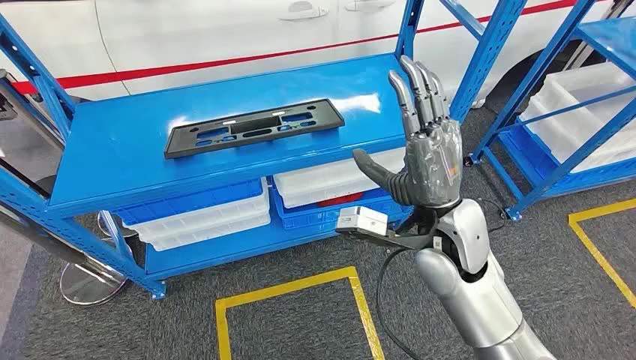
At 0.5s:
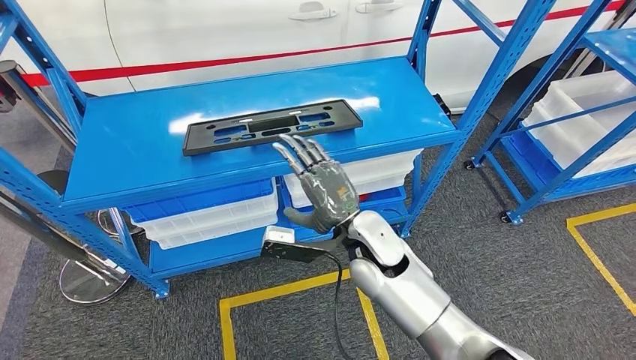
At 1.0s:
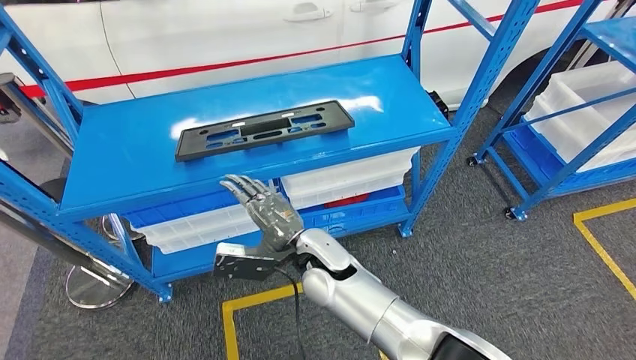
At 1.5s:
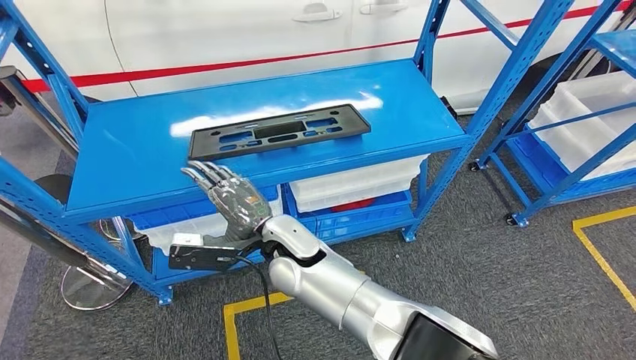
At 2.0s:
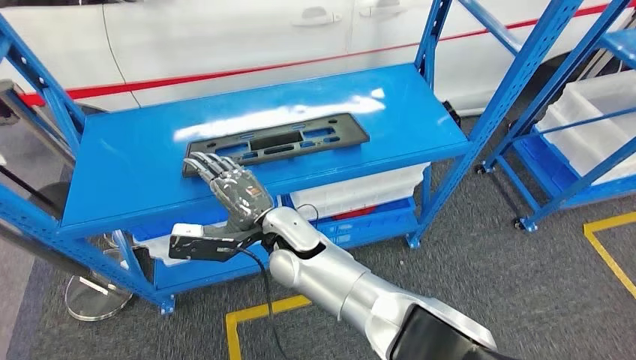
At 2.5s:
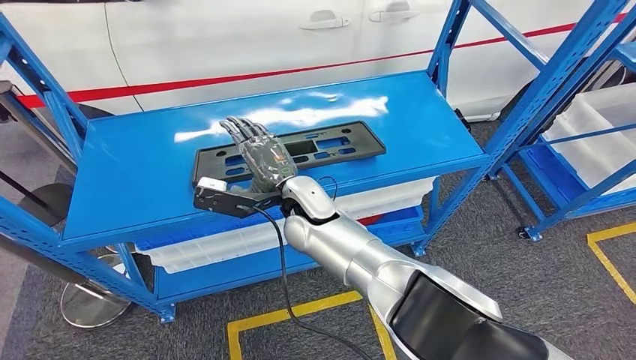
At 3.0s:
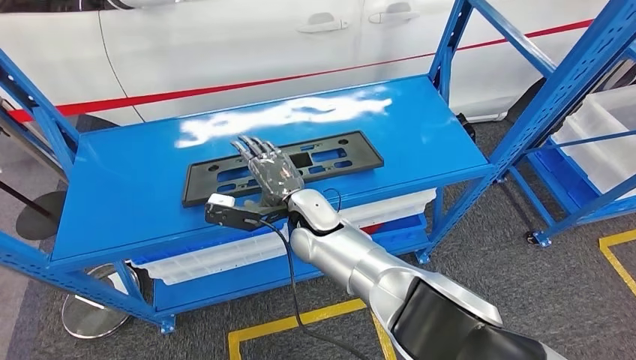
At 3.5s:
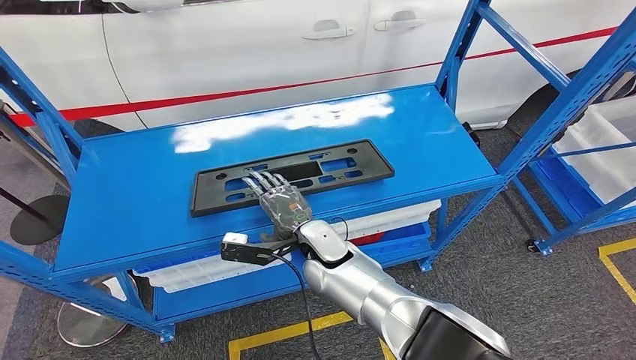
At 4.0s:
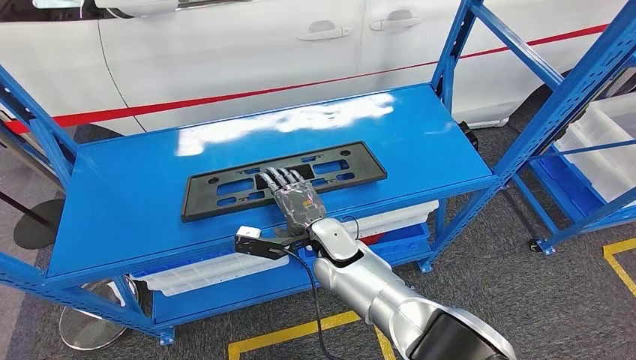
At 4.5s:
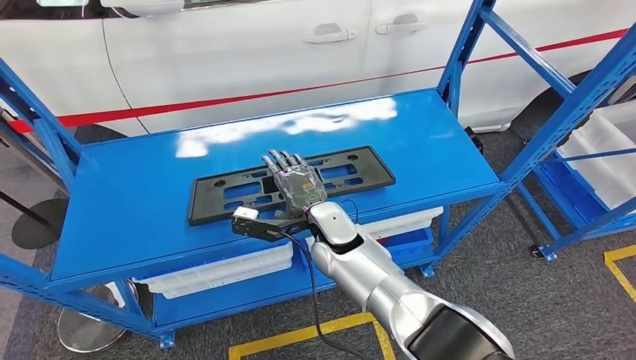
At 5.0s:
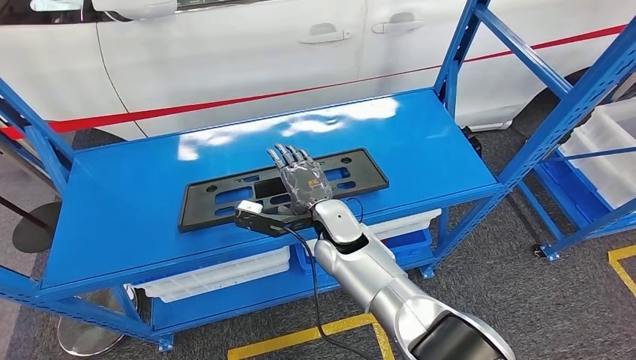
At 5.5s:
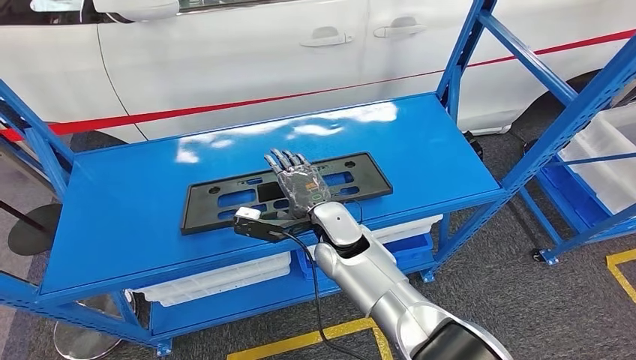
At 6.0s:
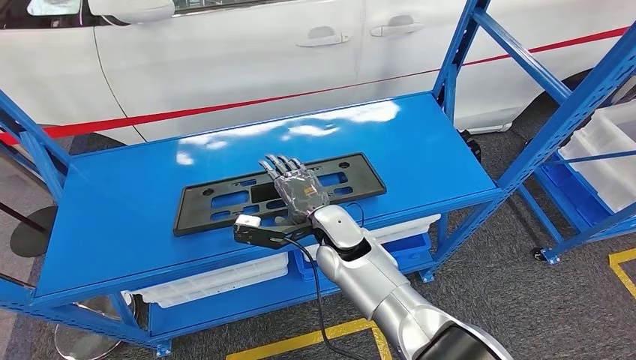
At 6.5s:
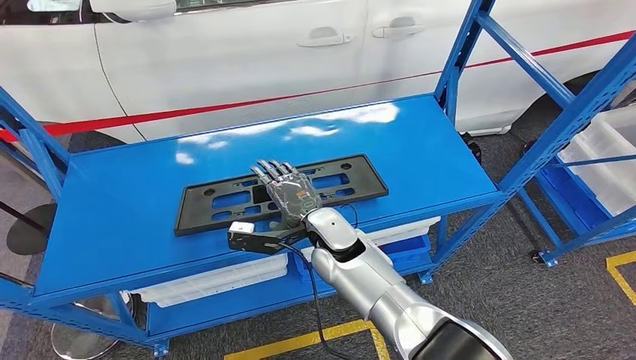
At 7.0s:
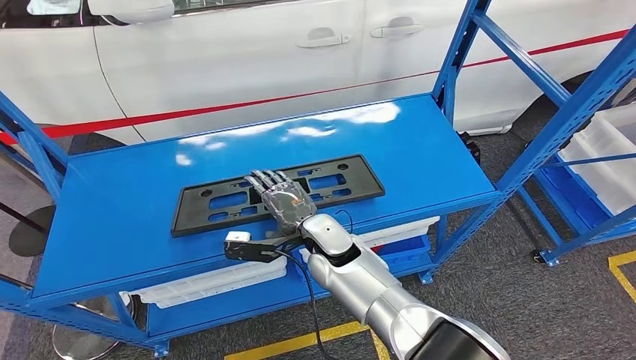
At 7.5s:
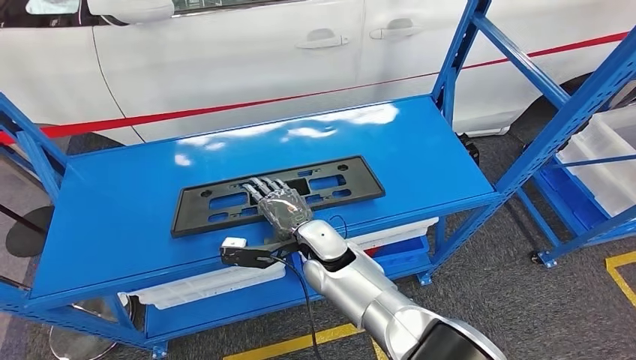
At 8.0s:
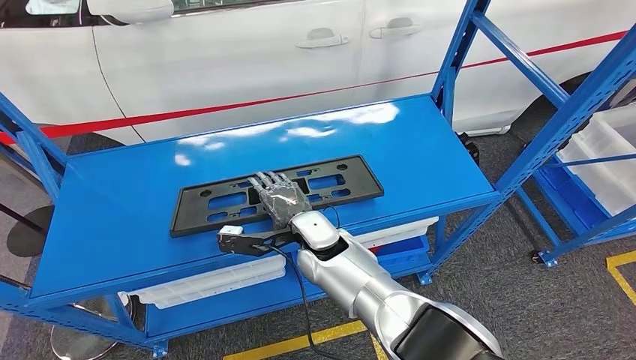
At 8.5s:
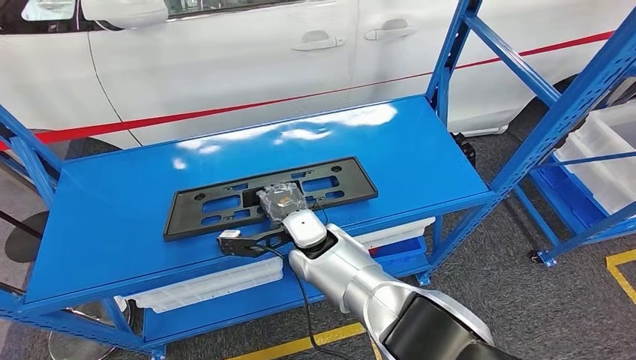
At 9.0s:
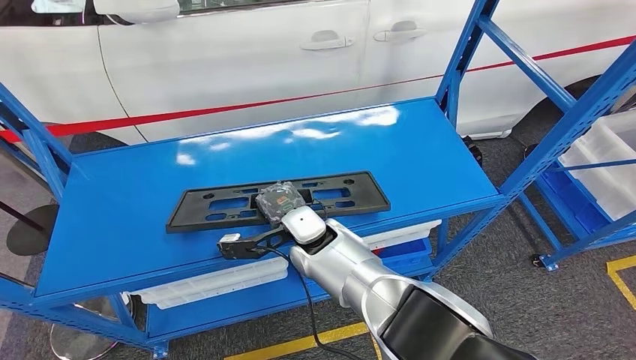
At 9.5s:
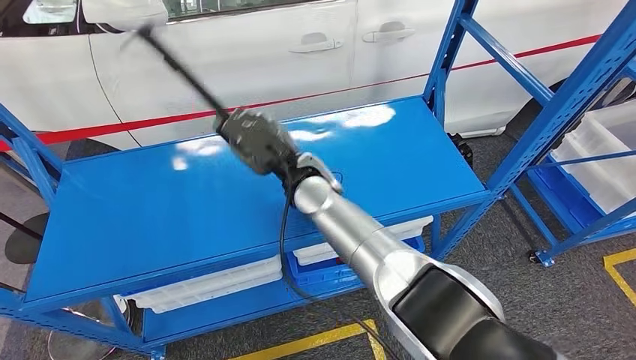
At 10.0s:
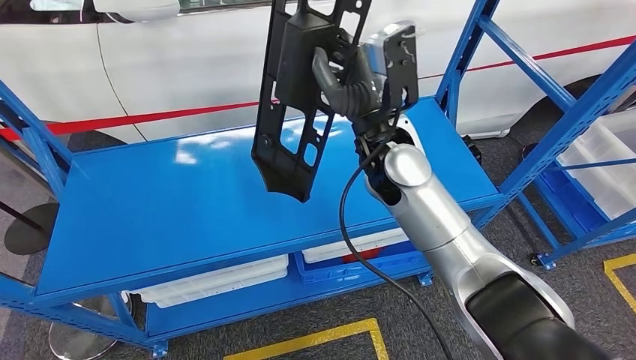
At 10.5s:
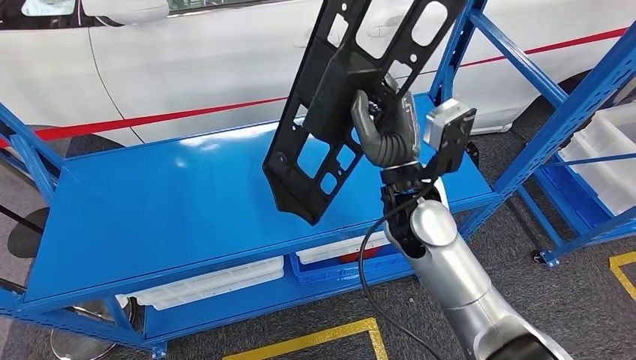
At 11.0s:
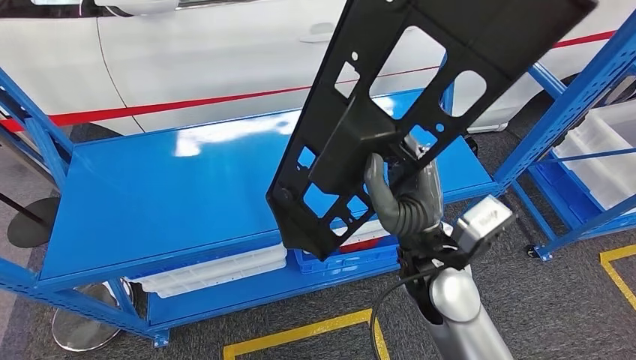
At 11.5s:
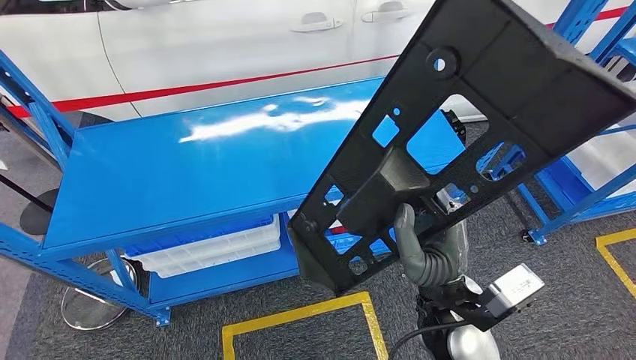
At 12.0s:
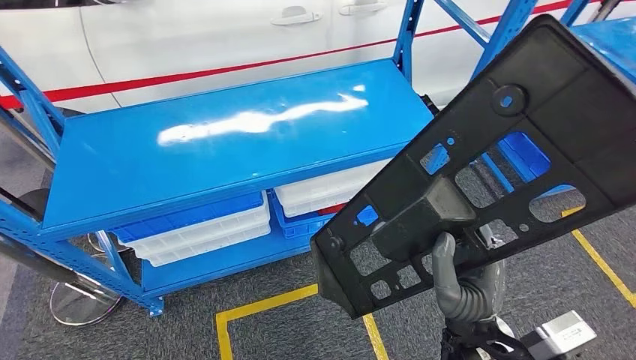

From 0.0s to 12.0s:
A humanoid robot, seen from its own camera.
Step, from 0.0s to 9.5s: Pick up the large parts from the shelf.
From 6.0s to 8.0s: The hands stay close to where they were, moving slightly.

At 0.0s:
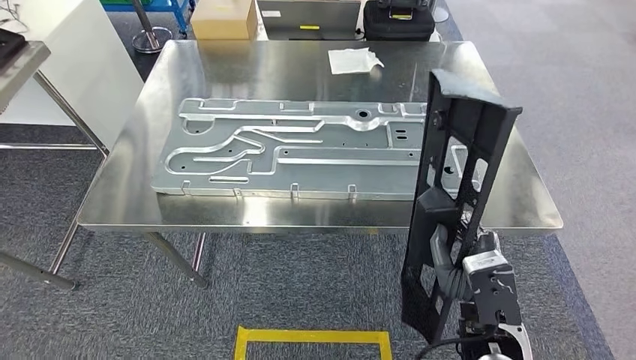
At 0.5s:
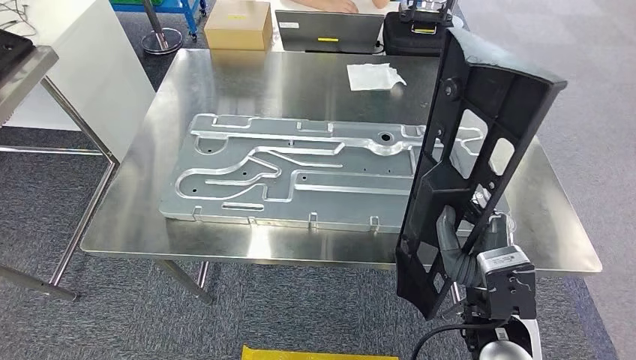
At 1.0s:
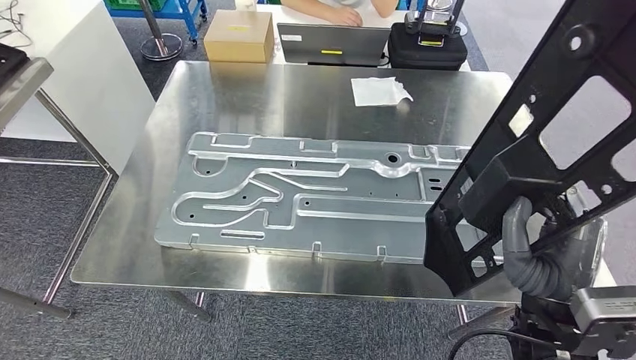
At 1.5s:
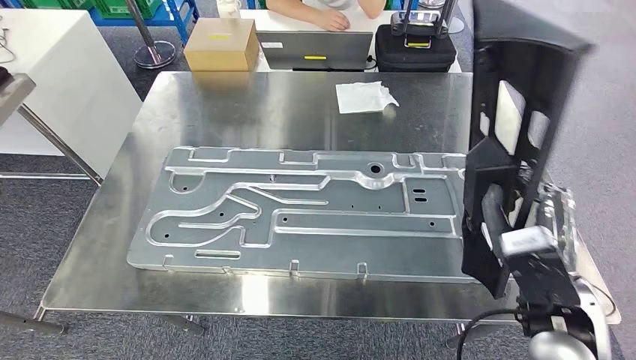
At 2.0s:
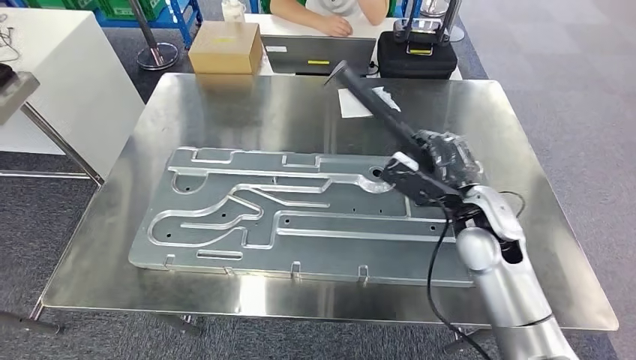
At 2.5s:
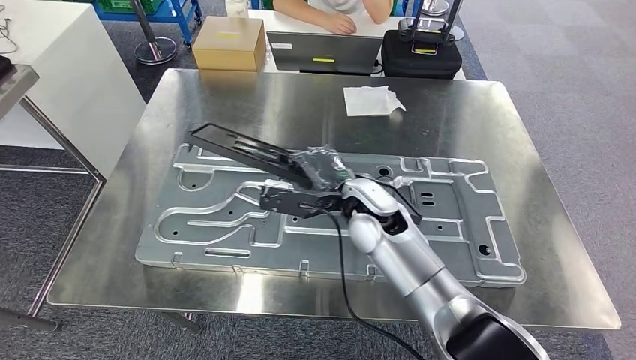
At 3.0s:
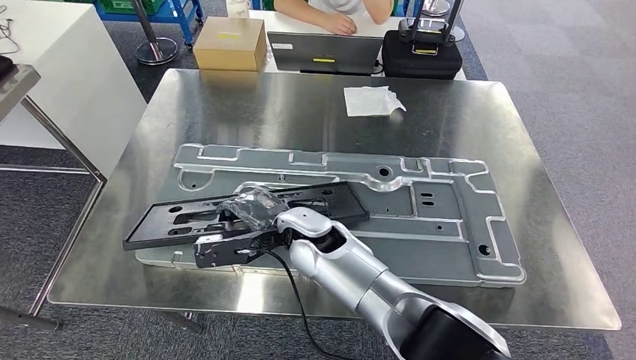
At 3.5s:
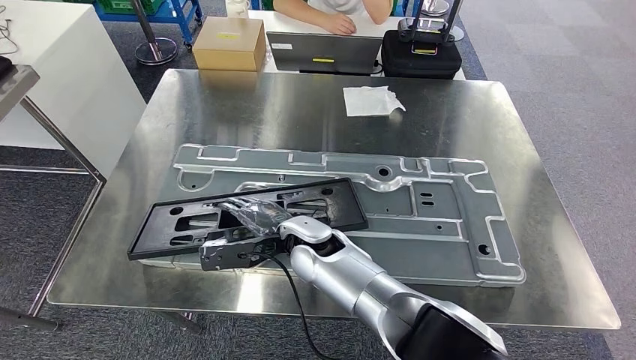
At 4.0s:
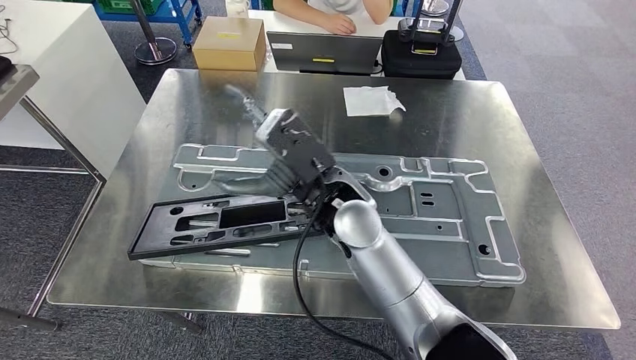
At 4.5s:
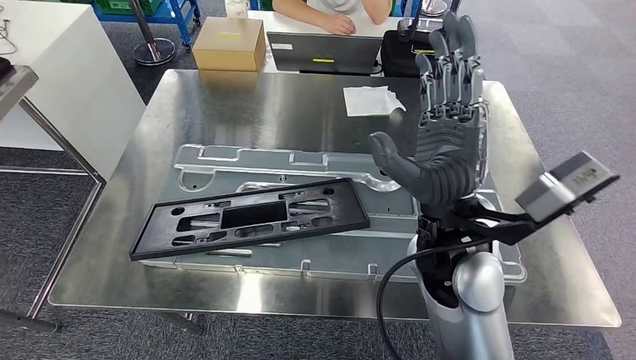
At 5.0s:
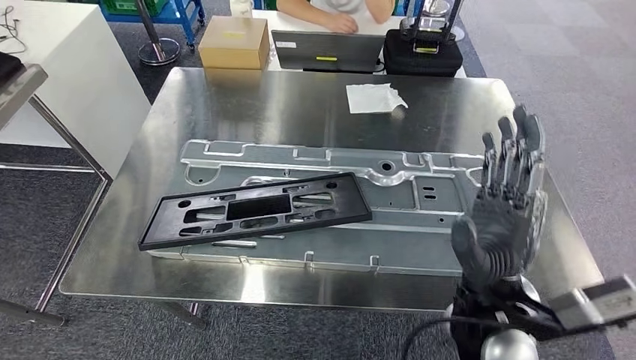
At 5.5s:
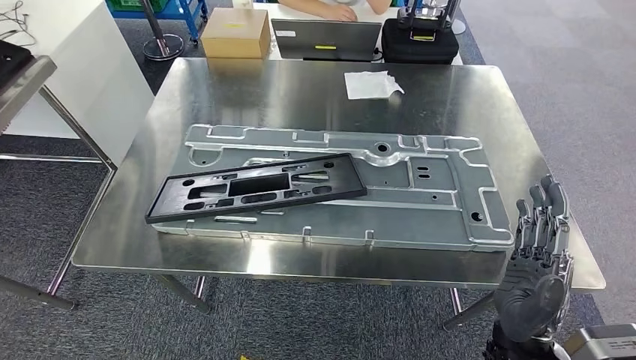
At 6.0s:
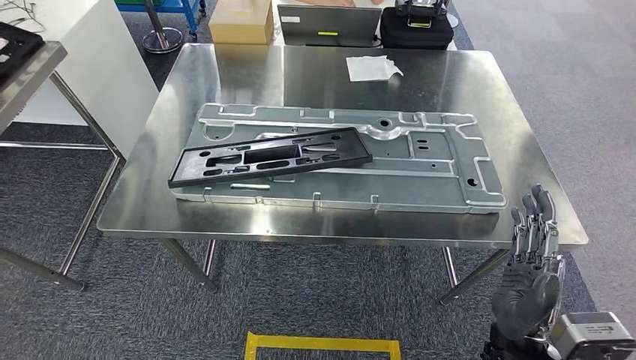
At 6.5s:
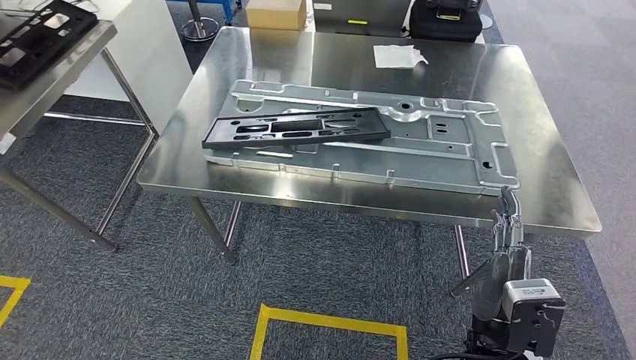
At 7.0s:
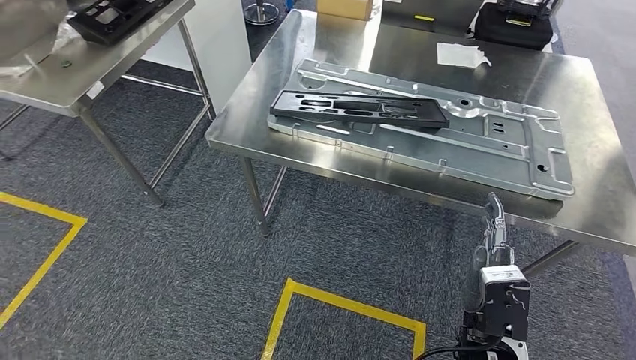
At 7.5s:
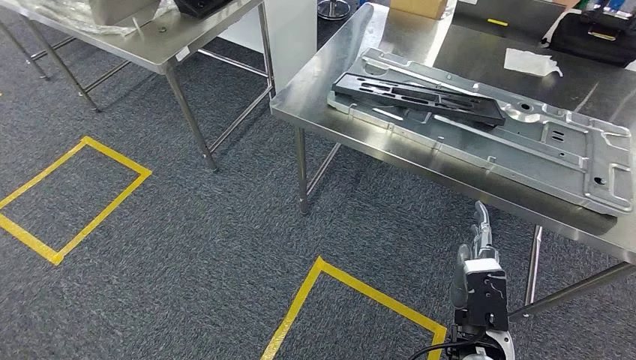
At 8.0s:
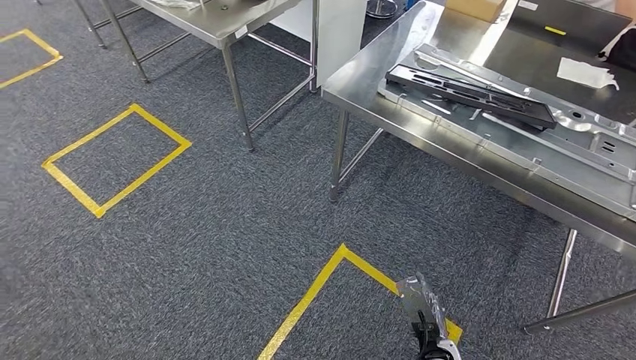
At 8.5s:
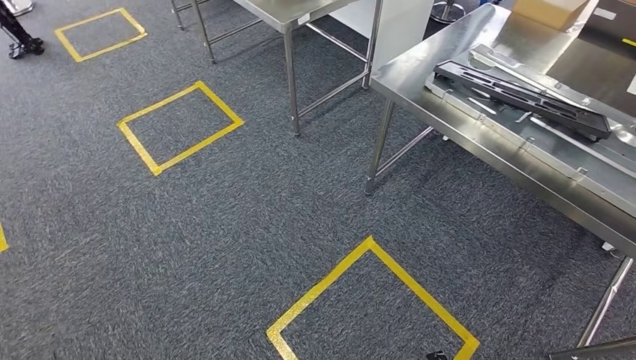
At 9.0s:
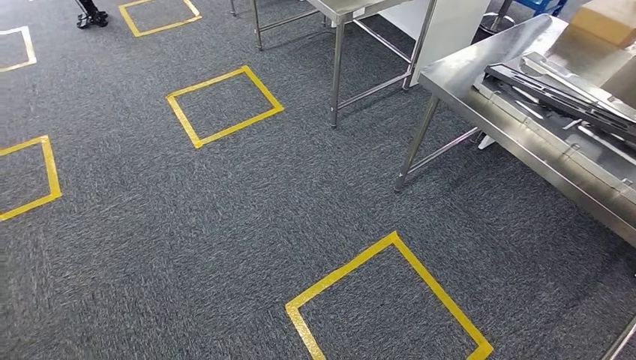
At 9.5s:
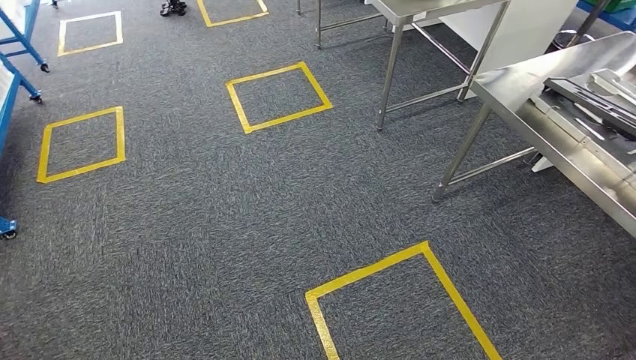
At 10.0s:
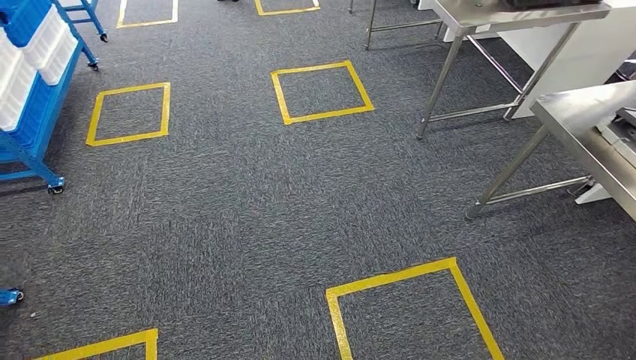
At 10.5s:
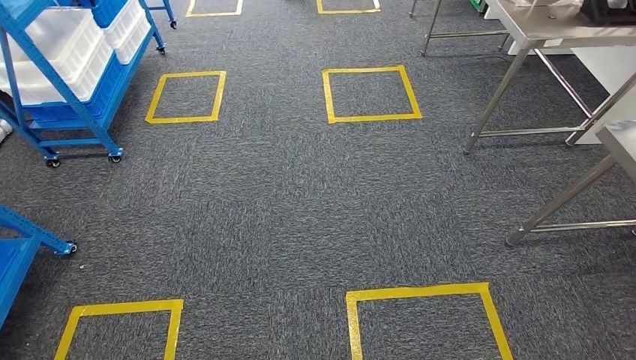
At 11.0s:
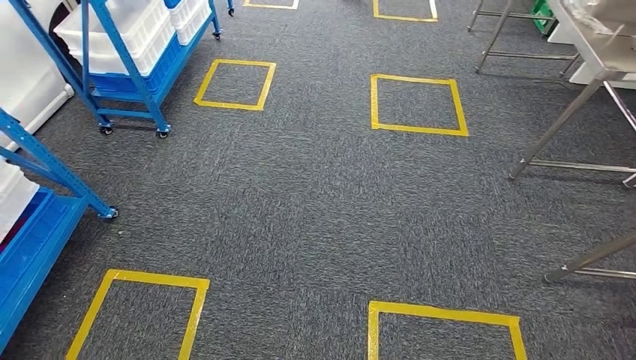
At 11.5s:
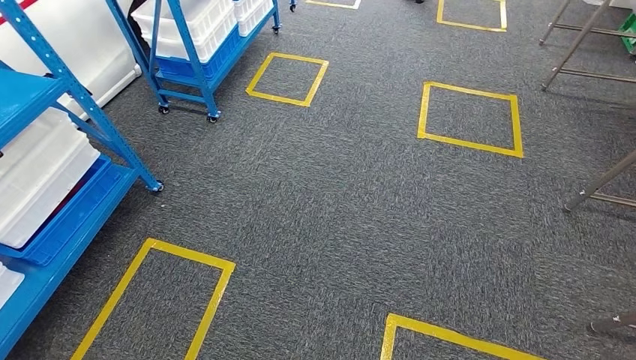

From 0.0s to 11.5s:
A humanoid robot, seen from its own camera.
Step, from 2.0s to 6.0s: Insert the large parts into the corresponding slots on the workbench.
